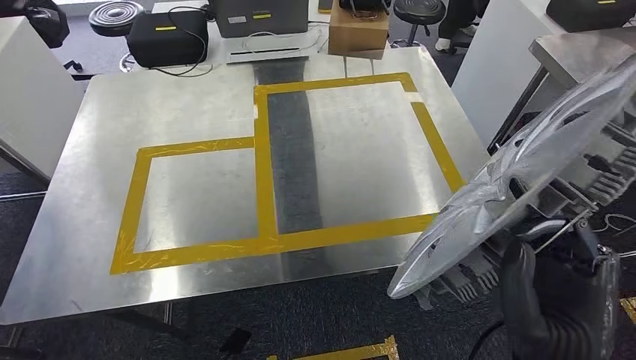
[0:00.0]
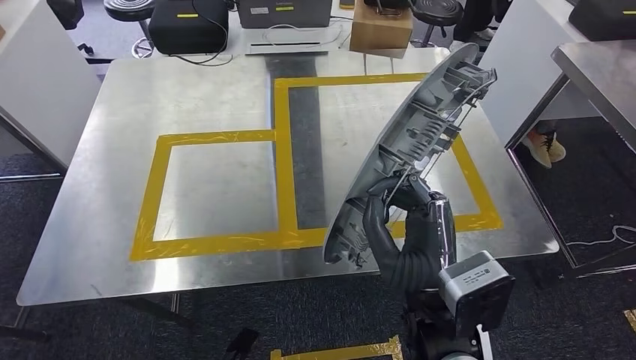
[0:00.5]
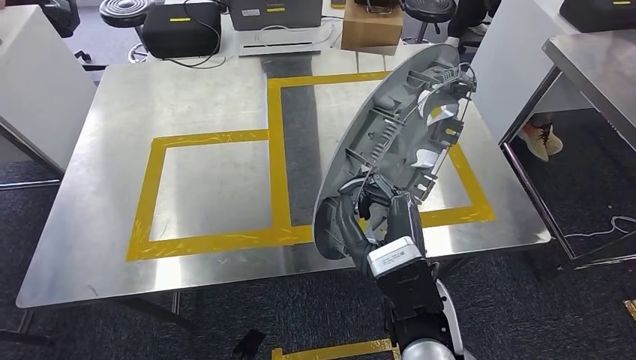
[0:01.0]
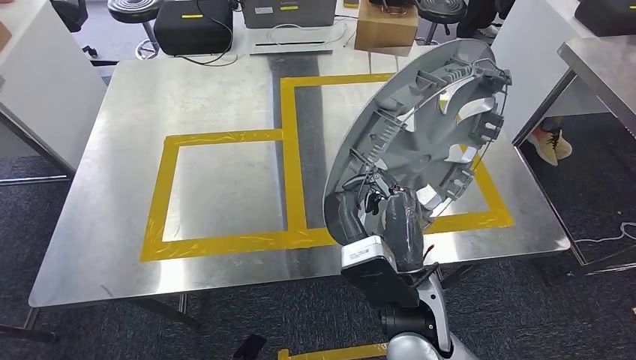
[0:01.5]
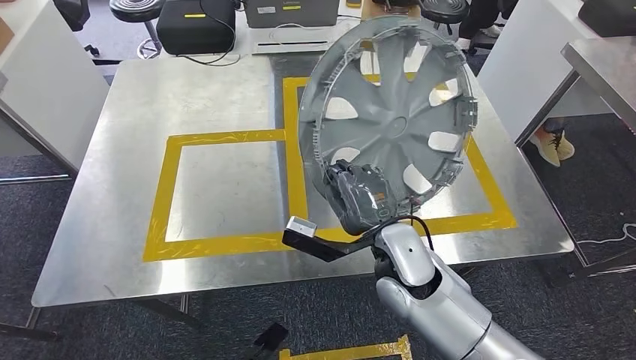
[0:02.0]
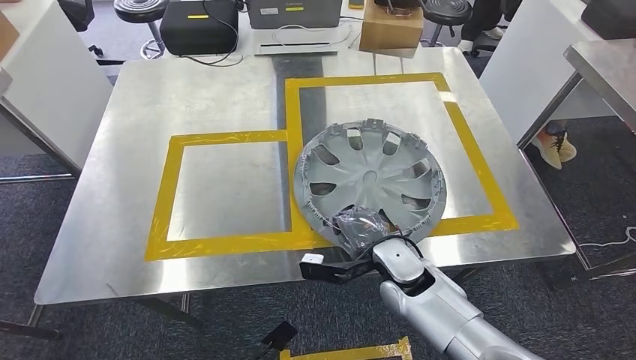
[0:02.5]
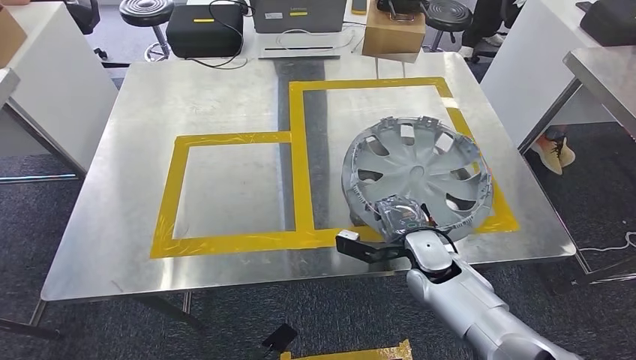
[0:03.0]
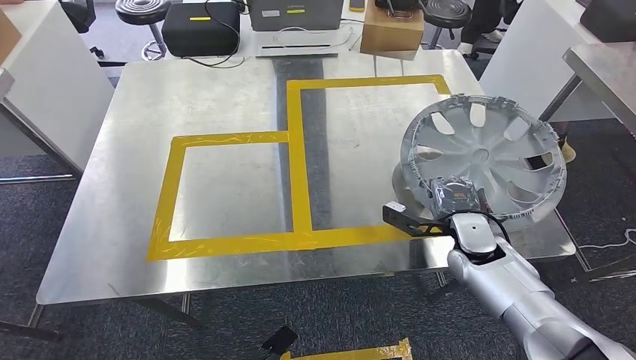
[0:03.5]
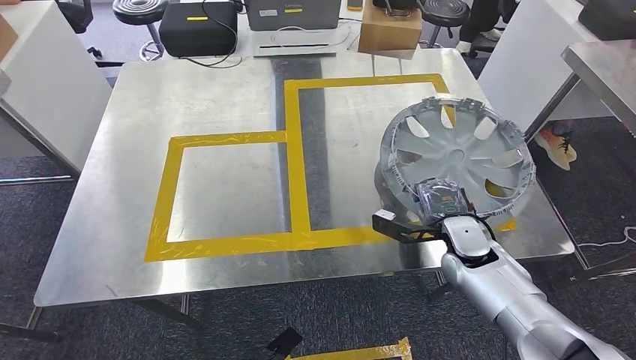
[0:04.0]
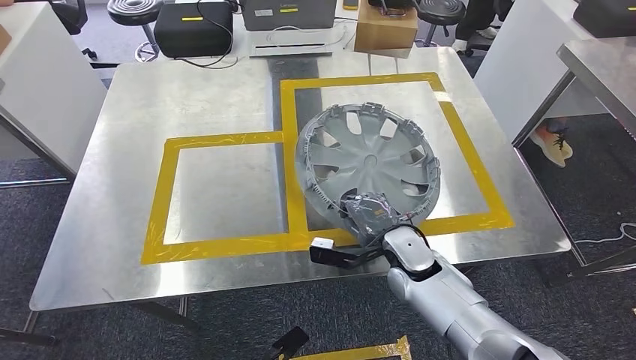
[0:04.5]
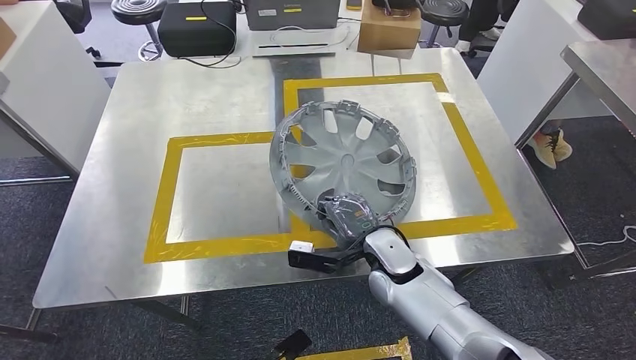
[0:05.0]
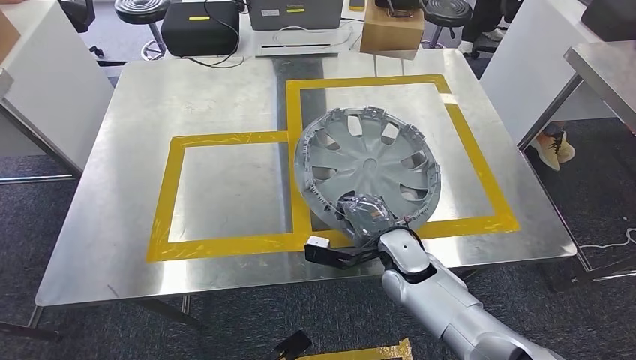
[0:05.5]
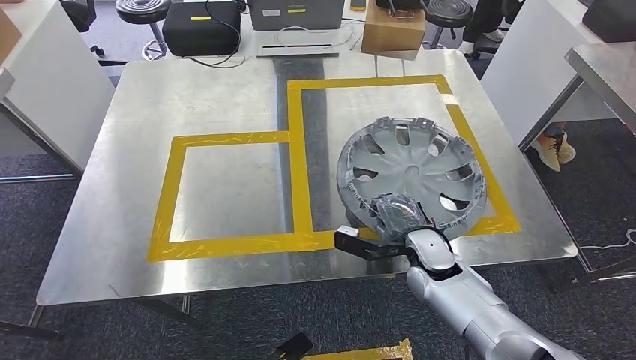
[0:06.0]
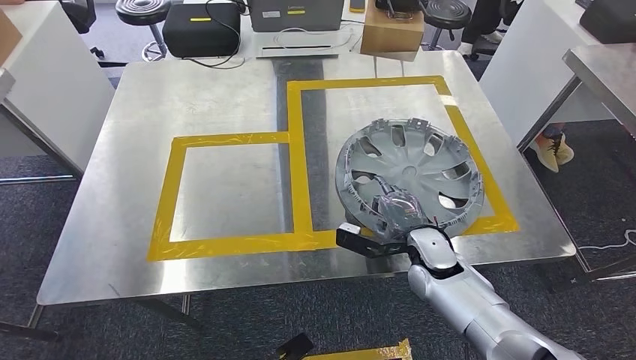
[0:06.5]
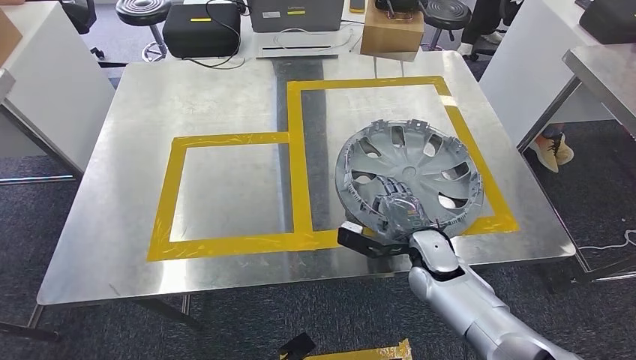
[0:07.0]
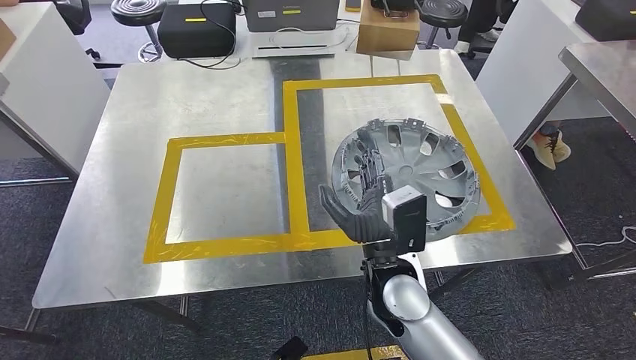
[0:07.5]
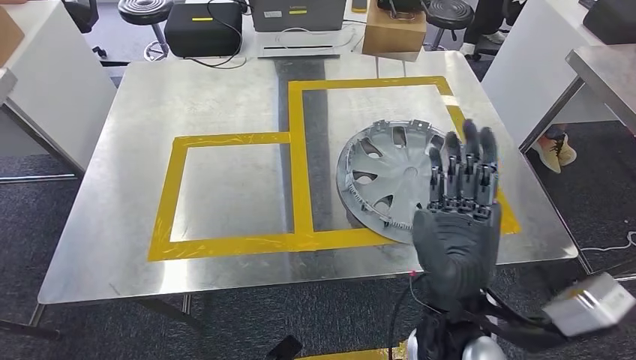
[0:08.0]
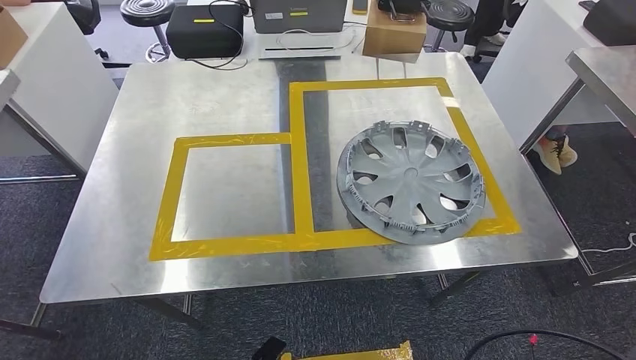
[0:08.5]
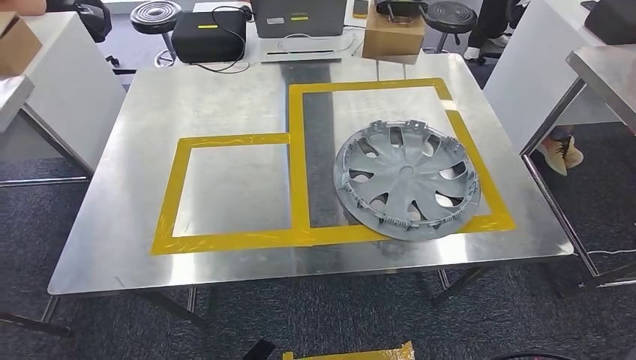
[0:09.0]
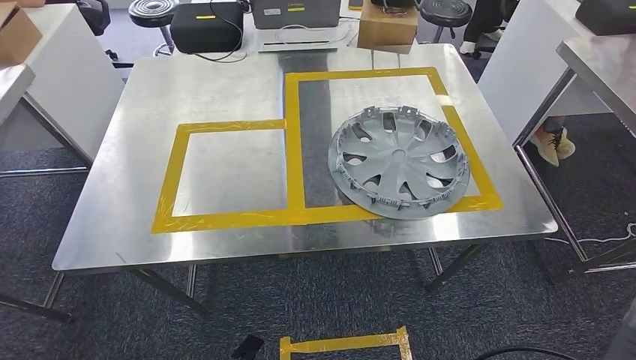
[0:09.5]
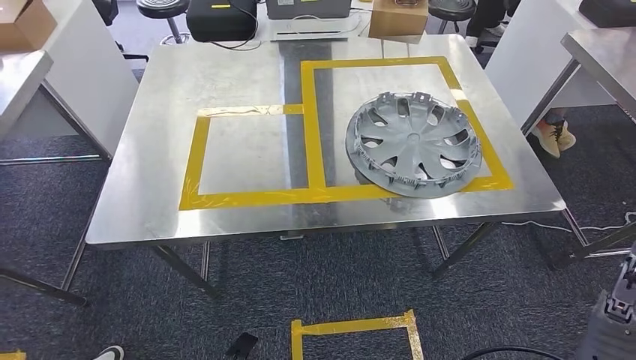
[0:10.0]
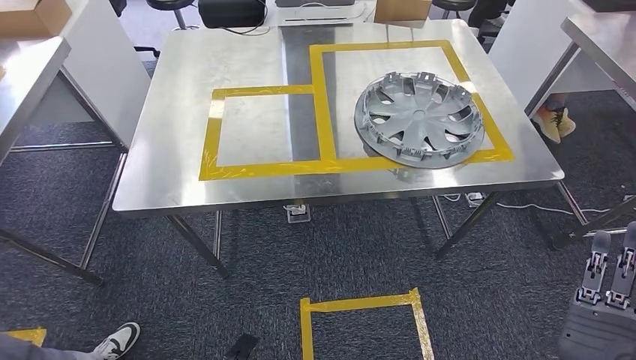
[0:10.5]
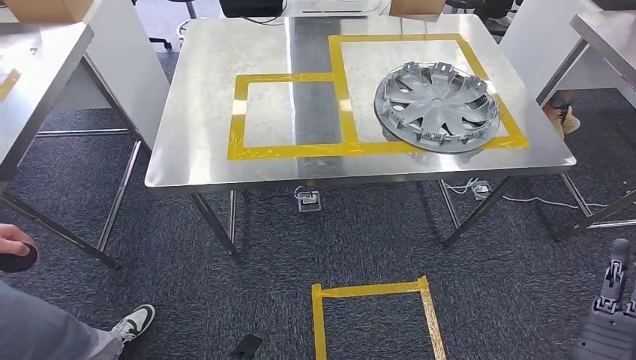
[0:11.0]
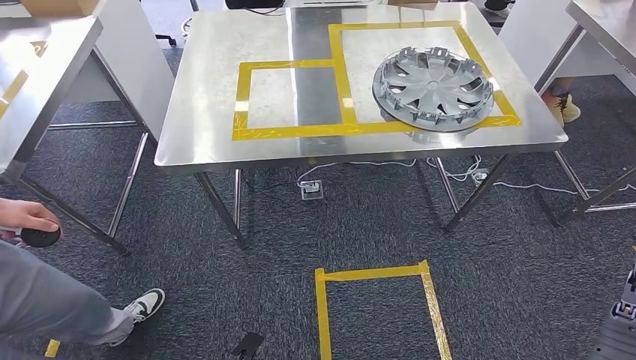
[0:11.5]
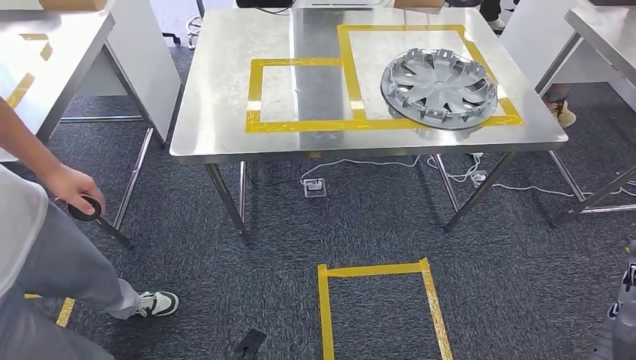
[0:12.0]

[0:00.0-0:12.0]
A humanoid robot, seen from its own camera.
Step, 0:00.5 to 0:08.5: Insert the small component into the corresponding slot on the workbench.
0:06.0 to 0:08.0: The right hand shifts some 20 cm backward, upward and to the left.

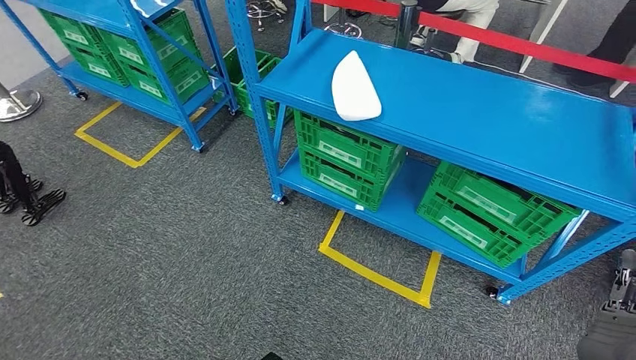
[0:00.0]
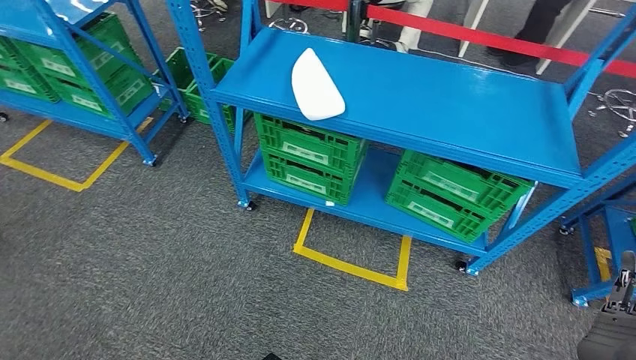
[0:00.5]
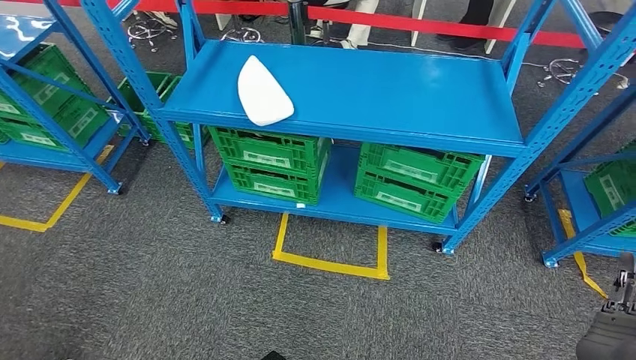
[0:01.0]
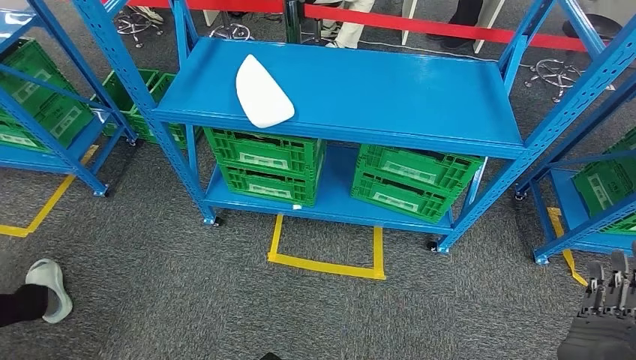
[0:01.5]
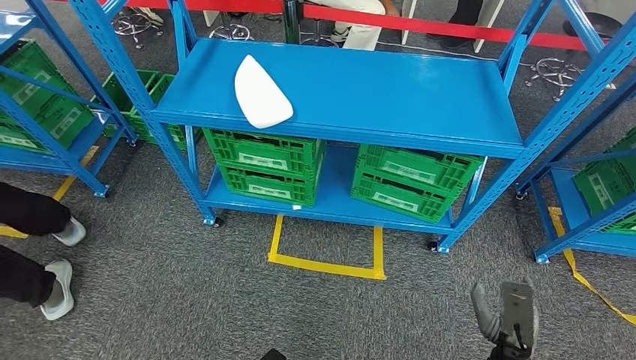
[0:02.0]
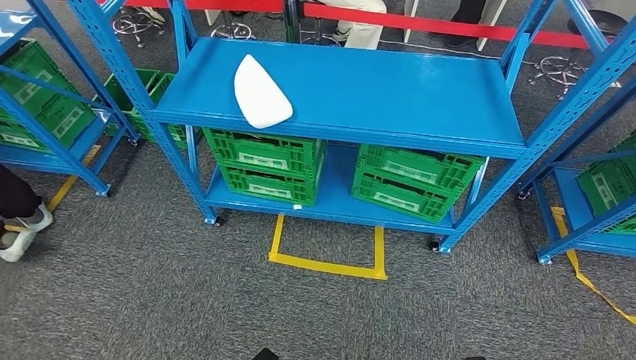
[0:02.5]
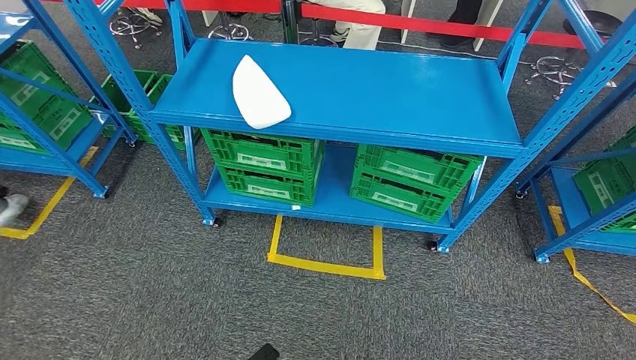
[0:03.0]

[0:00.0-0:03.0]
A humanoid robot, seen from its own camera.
Step, 0:00.0 to 0:03.0: Return to the initial position at the workbench.
0:01.5 to 0:03.0: The right hand moves downward, about 30 cm.
